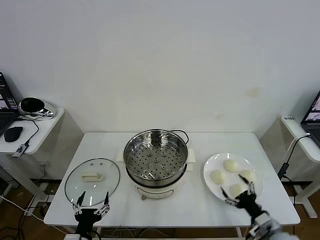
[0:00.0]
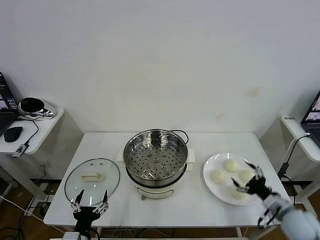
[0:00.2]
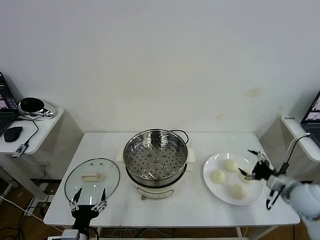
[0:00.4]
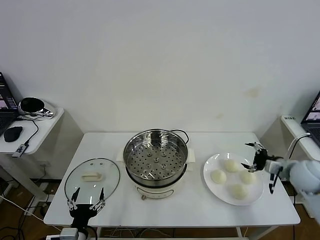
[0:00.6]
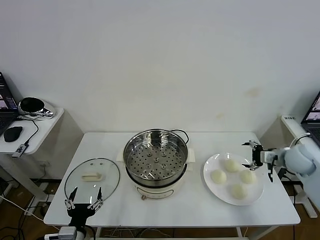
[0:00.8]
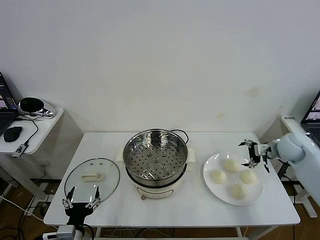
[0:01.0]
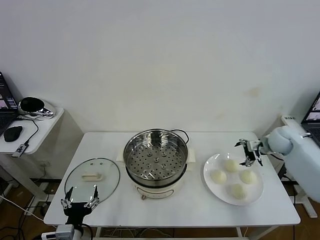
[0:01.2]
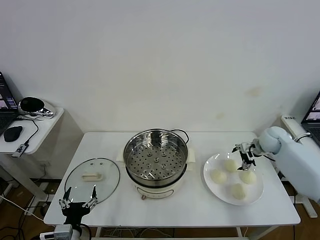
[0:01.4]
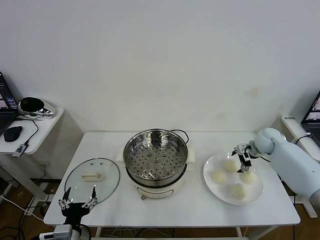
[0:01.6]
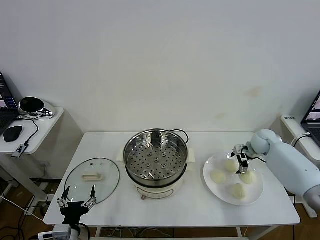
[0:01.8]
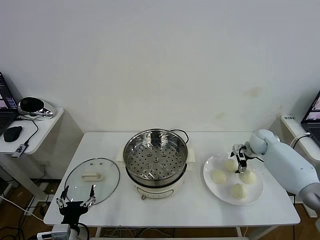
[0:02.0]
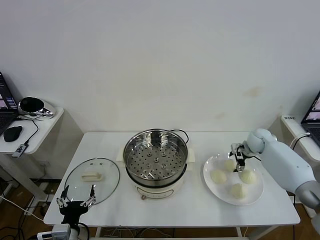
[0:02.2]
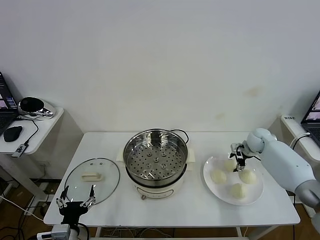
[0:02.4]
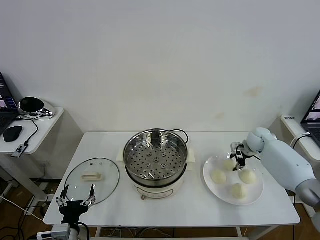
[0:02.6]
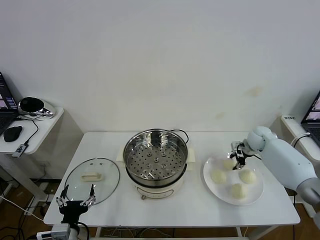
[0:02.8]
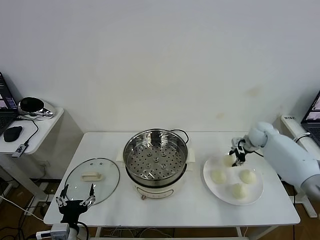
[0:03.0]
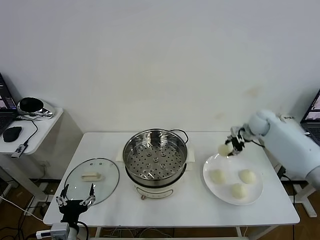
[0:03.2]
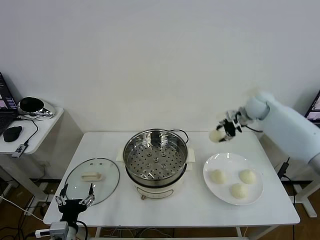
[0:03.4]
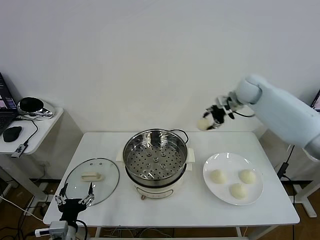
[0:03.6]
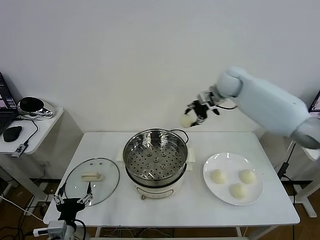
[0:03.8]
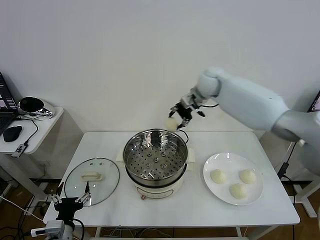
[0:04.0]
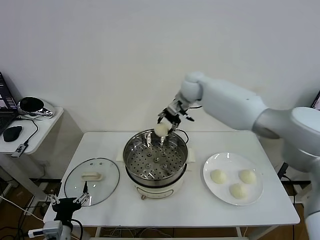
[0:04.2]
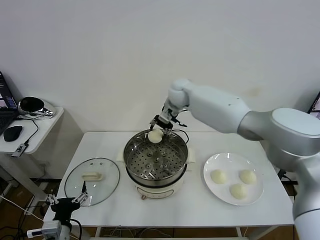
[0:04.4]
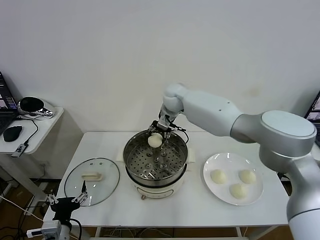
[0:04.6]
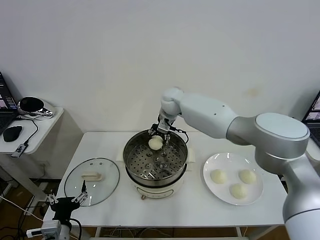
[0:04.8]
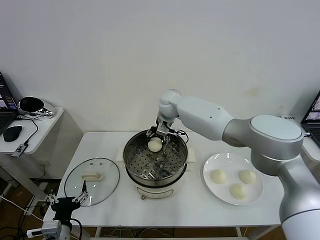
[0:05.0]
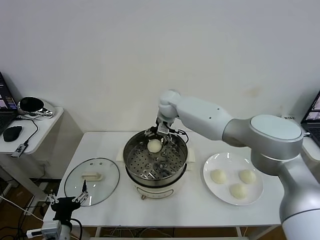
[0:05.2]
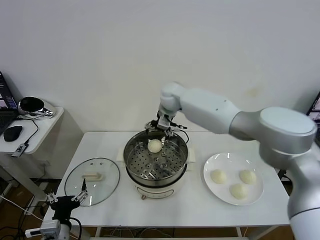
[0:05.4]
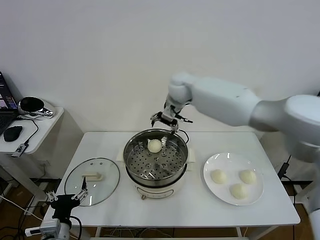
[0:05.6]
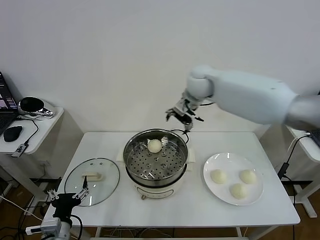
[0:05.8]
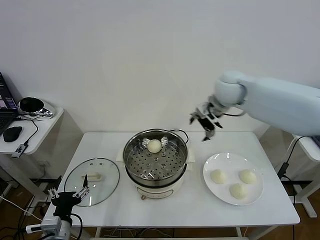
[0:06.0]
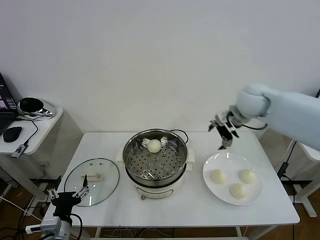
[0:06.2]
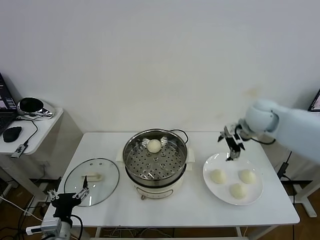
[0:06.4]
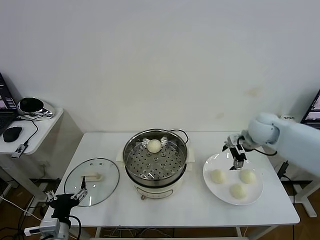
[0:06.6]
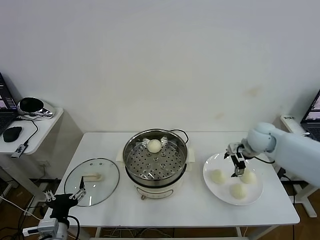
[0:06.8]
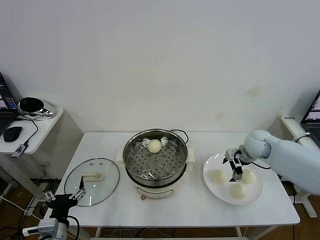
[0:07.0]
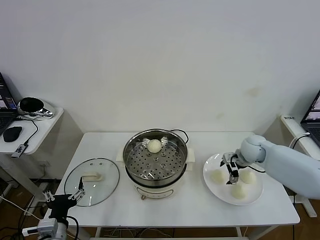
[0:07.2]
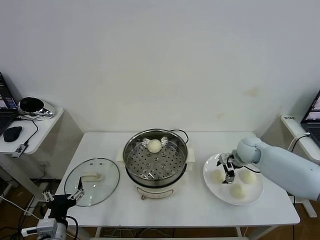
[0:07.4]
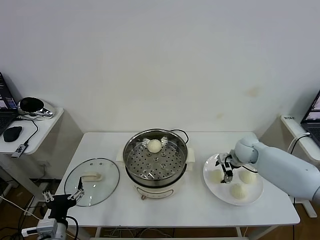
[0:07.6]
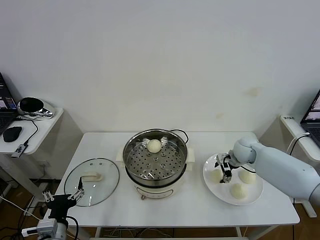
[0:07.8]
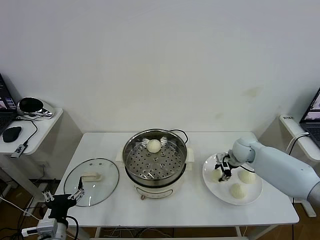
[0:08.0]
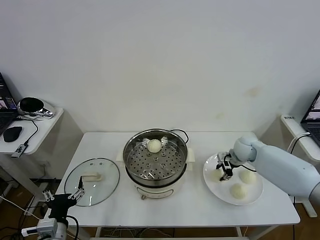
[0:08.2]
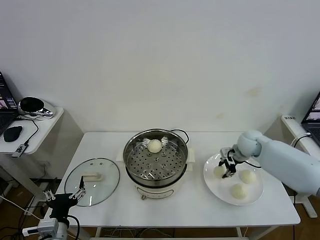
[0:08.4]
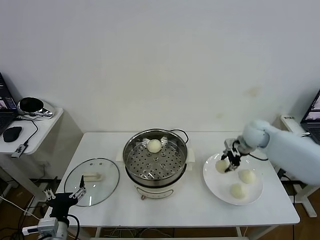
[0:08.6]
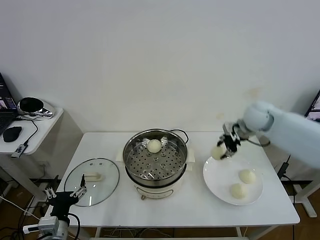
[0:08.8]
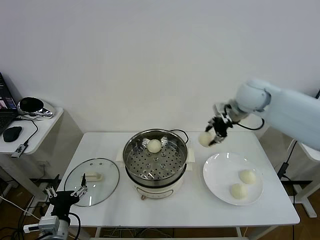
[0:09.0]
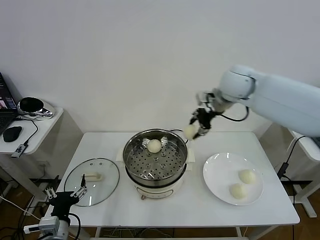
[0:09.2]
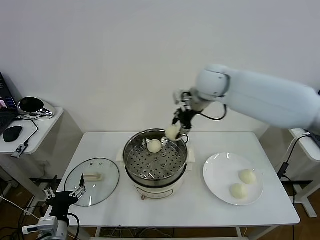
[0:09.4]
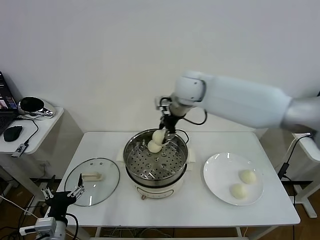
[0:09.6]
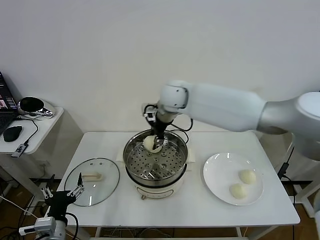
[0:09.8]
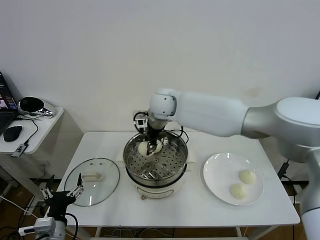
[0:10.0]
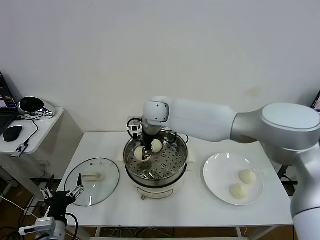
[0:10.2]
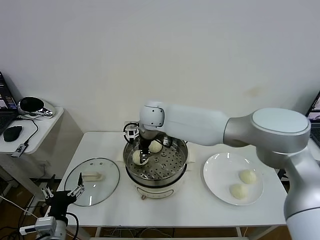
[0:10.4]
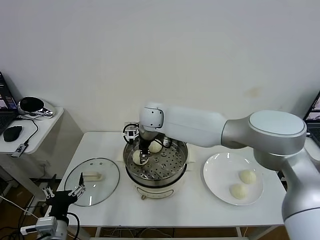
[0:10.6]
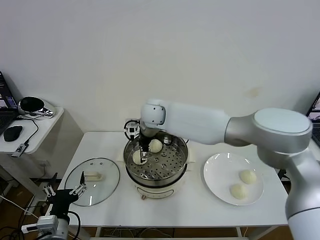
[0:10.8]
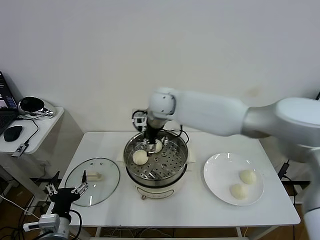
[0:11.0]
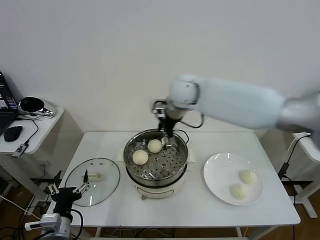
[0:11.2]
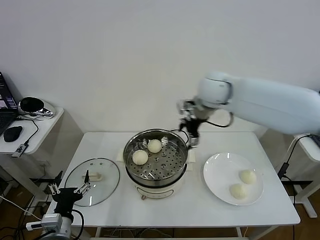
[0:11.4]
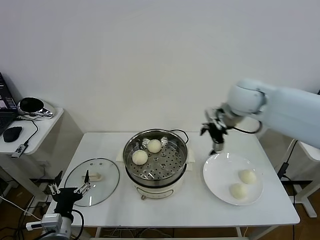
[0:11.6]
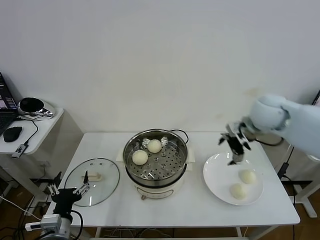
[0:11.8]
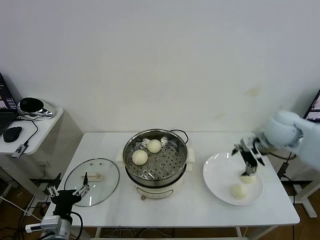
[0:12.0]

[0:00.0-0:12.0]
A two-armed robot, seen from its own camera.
Task of the whole recording: take steamed baozi put them in steamer then cover it.
Step, 0.0 to 2.4 s: Grasp the baozi in the plate with right gripper.
Step, 2.8 to 5.2 s: Place the baozi on the steamer with right gripper.
Step, 5.4 to 8.0 s: Grasp the baozi in the plate with right gripper.
Step, 8.2 to 11.0 s: Place the baozi on the steamer with right gripper.
1.6 to 3.0 s: The right gripper shifts approximately 5 cm upward, and closes its fingers.
3.0 to 4.4 s: The right gripper moves to the left, about 35 cm.
4.4 to 6.0 s: The right gripper goes about 20 cm to the right and backward, and opens up.
6.0 to 7.6 s: The right gripper goes some 25 cm downward.
7.6 to 9.0 s: The right gripper moves upward, roughly 25 cm, and closes its fingers.
9.0 to 10.4 s: The right gripper heads to the left, covering roughly 30 cm.
10.4 to 12.0 s: The right gripper heads to the right, covering roughly 40 cm, and opens.

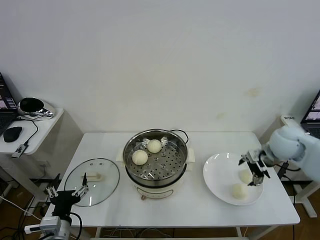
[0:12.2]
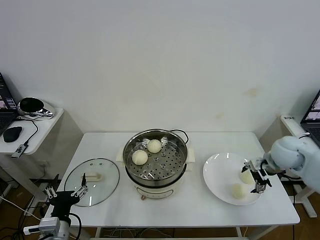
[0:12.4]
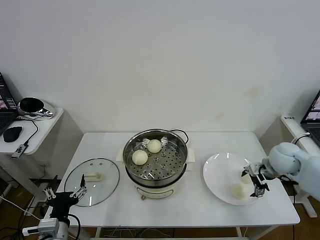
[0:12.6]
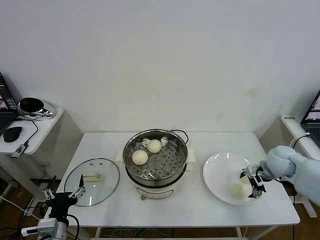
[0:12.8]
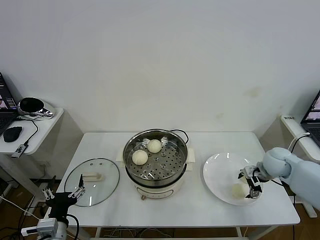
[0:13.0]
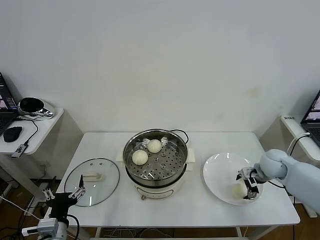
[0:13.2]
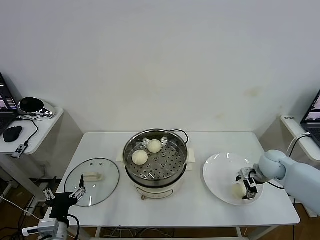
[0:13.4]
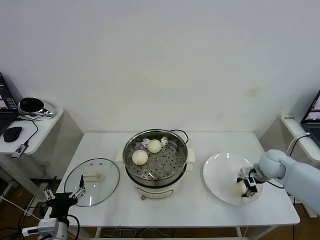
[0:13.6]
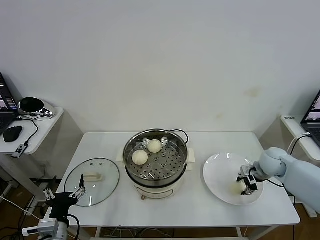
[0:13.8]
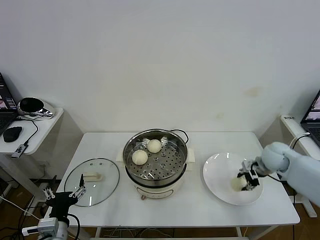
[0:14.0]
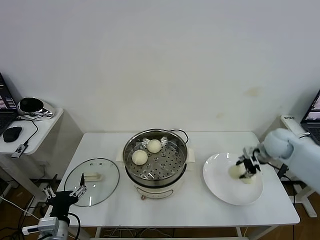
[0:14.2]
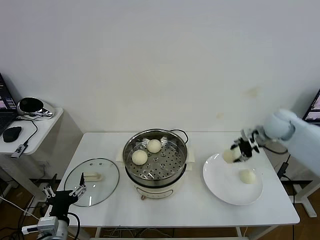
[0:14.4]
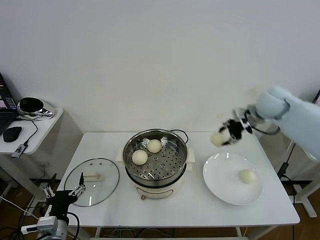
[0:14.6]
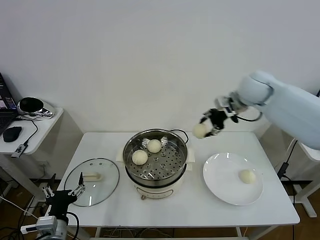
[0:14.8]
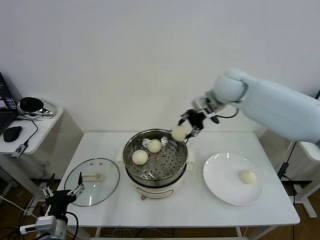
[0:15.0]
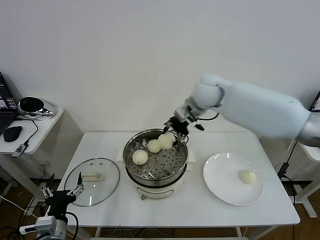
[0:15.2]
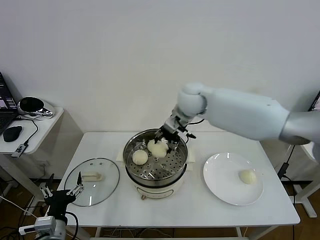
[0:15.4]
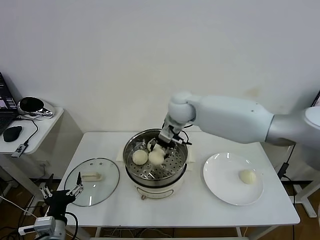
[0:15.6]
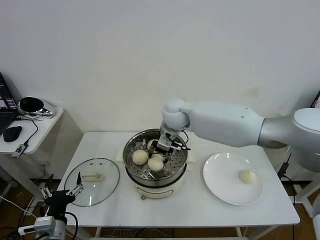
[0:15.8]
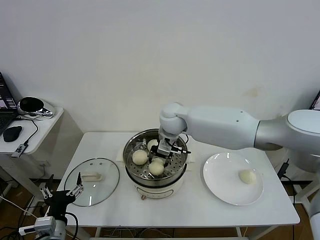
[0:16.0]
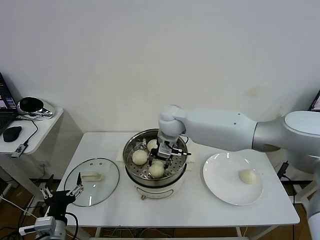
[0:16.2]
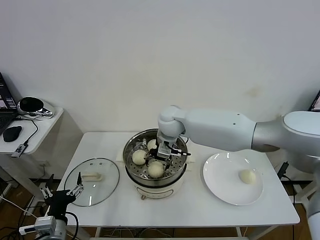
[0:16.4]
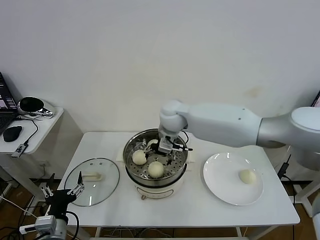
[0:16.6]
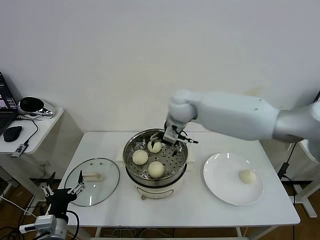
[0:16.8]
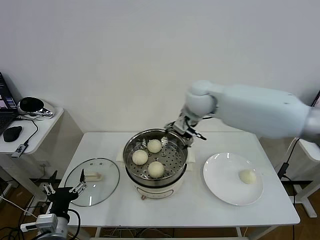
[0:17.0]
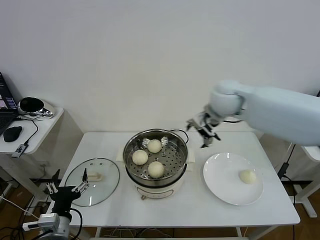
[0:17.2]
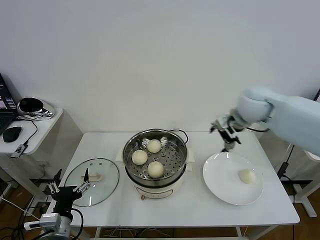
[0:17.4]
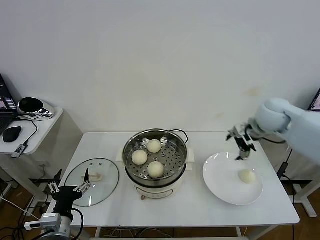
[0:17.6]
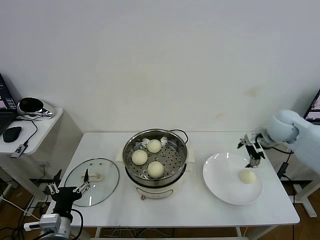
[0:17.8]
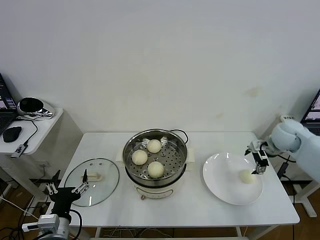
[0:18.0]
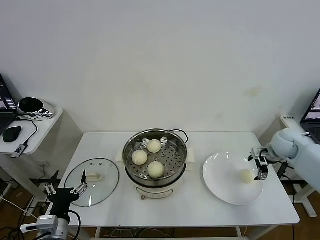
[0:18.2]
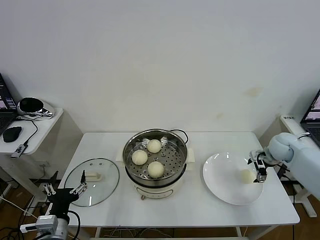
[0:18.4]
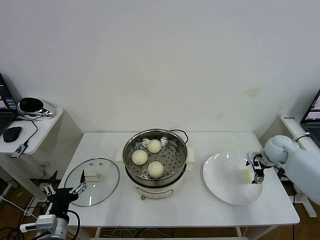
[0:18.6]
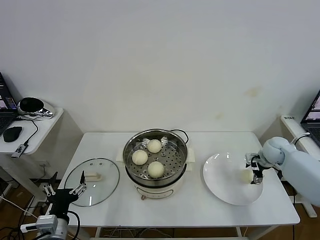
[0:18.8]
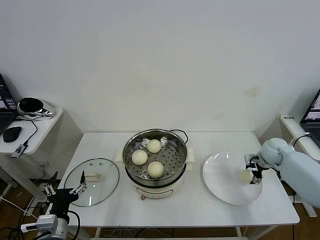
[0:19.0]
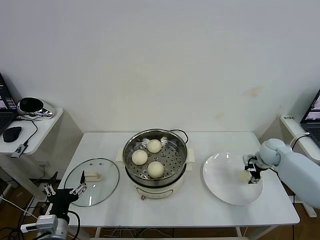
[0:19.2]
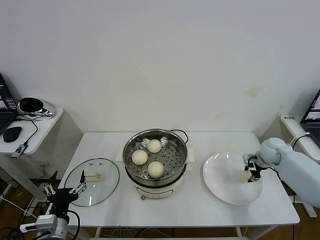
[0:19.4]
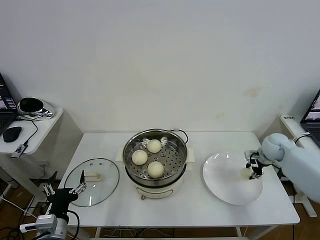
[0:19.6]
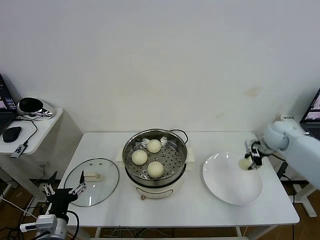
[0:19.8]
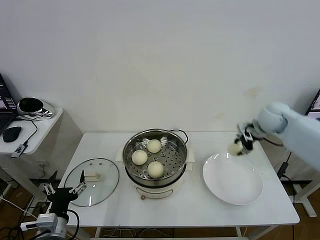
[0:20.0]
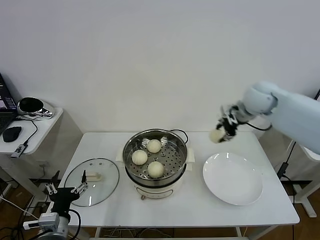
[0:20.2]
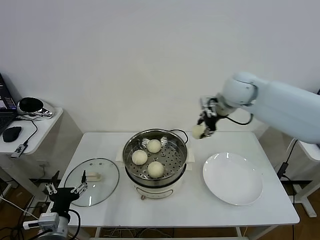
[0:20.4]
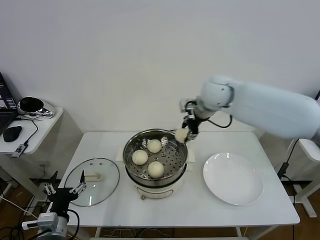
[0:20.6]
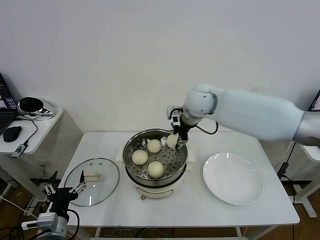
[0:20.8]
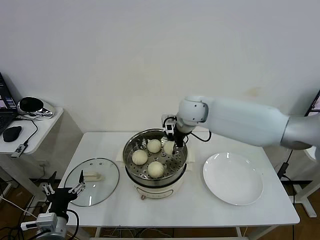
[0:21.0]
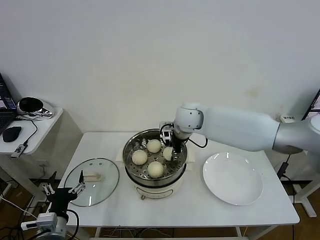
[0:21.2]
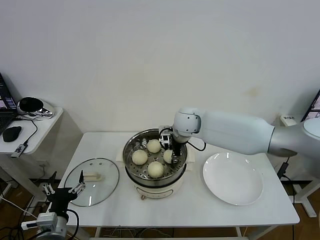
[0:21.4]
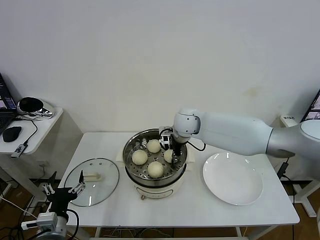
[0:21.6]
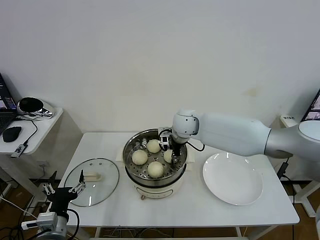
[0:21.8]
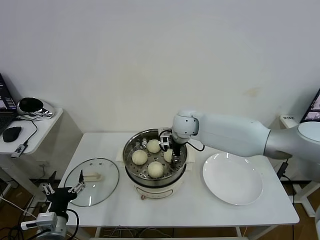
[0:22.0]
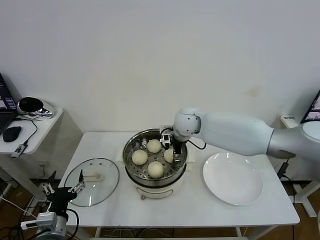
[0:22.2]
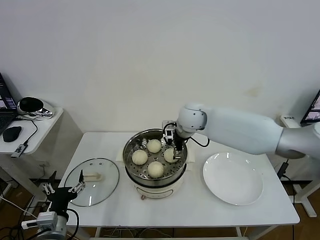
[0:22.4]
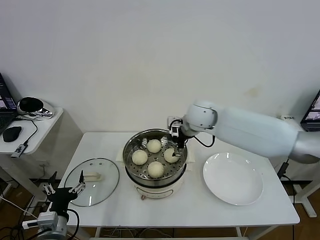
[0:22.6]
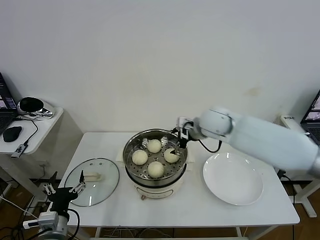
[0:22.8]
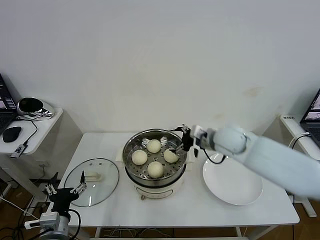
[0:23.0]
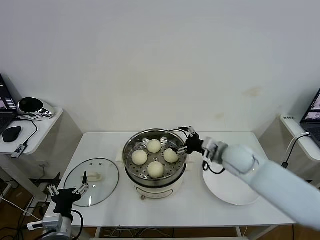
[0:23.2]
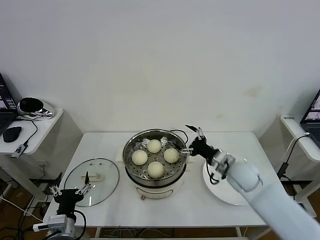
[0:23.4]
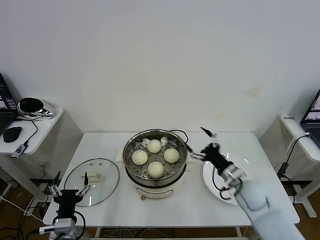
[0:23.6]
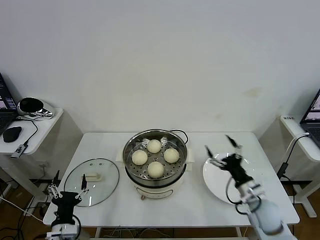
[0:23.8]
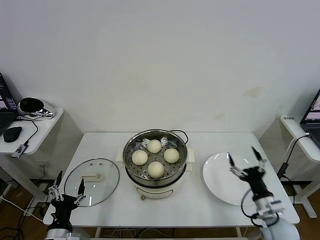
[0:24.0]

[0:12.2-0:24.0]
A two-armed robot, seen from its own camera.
Task of the whole recording: take steamed baozi put them in steamer then cover it.
Step, 12.2 to 13.6 s: Grasp the baozi in the plate with right gripper.
Step, 13.8 to 16.6 s: Place the baozi on the steamer with right gripper.
Step, 16.8 to 19.4 s: Grasp the baozi in the plate with right gripper.
Step, 19.6 to 22.4 s: Place the baozi on the steamer with right gripper.
12.2 to 13.6 s: The right gripper heads downward, covering roughly 10 cm, and closes its fingers.
13.6 to 15.2 s: The right gripper is displaced to the left and upward by roughly 35 cm.
15.2 to 16.6 s: The right gripper moves to the left and downward, approximately 10 cm, and opens.
16.6 to 18.2 s: The right gripper moves to the right, roughly 40 cm.
18.2 to 19.6 s: The right gripper closes up.
19.6 to 21.0 s: The right gripper moves to the left and upward, approximately 35 cm.
21.0 to 22.6 s: The right gripper opens up.
22.6 to 24.0 s: The left gripper shifts approximately 5 cm downward, while the right gripper is displaced backward, downward and to the right by some 40 cm.
